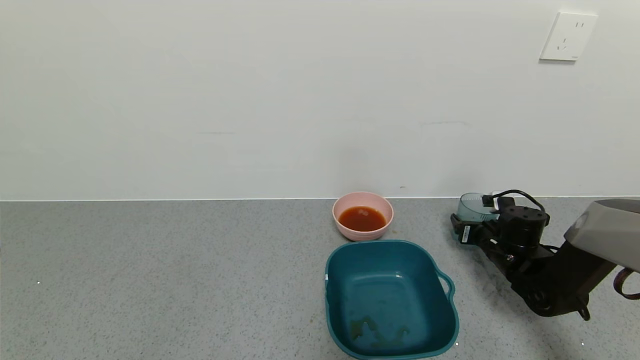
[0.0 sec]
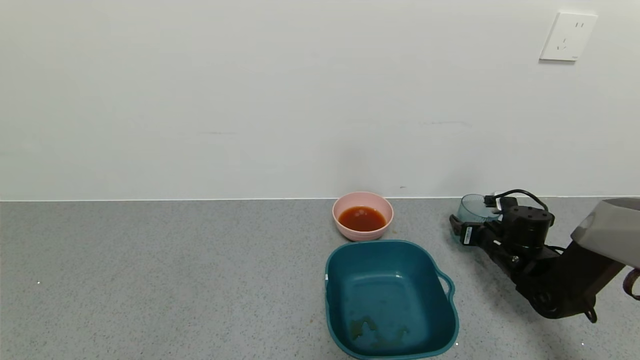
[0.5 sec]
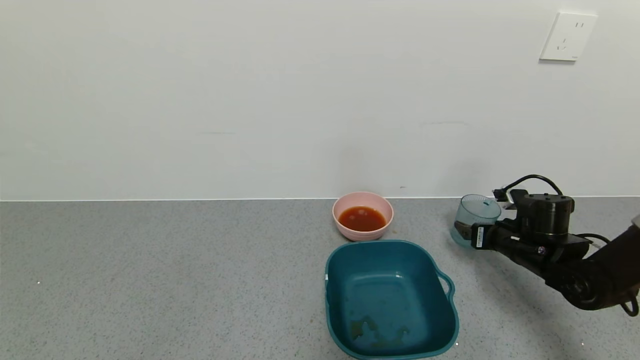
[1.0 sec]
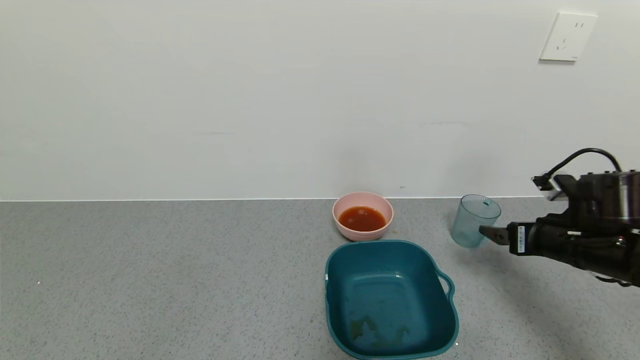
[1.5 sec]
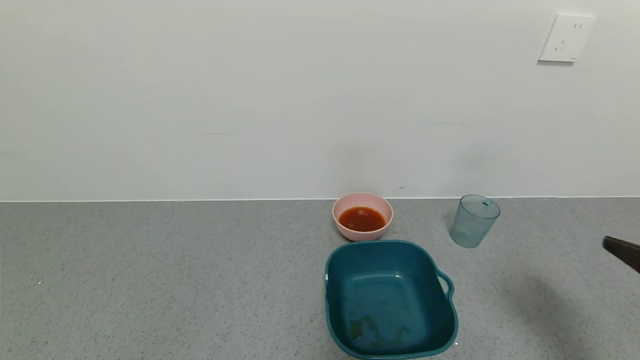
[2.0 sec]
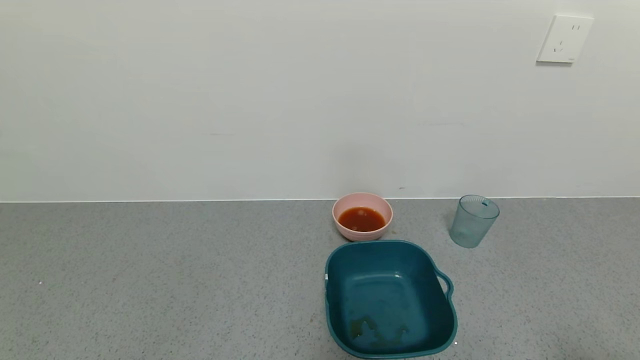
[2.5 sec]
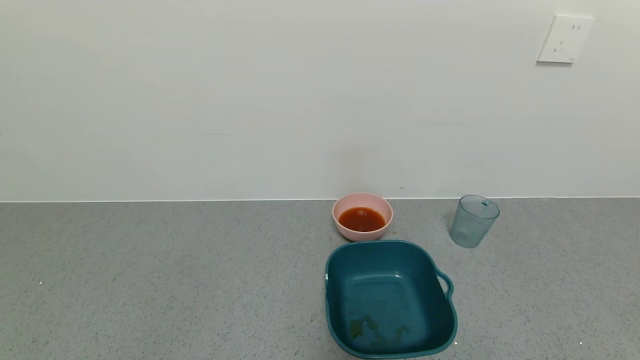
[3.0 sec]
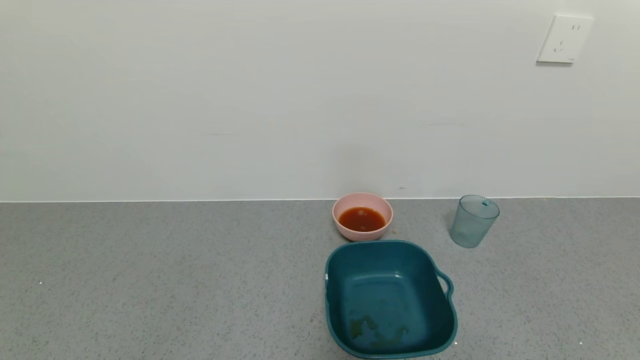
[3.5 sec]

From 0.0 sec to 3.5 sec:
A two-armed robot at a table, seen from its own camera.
Task of the whole recording: use a gripper to pick up the cup and pour the liquid into a bowl or tray.
From 0.0 sec to 2.0 sec: The right gripper is displaced backward and upward by some 35 cm, and opens up.
From 2.0 sec to 3.5 sec: The right gripper shifts roughly 20 cm backward and downward.

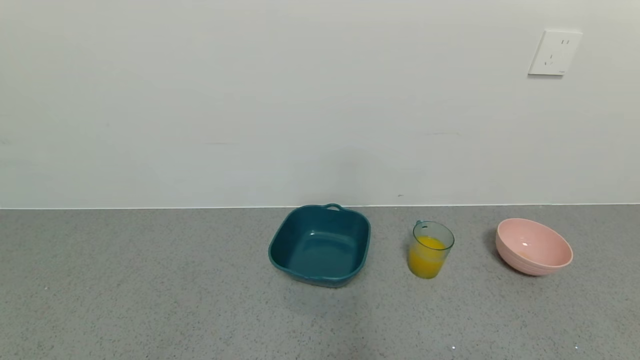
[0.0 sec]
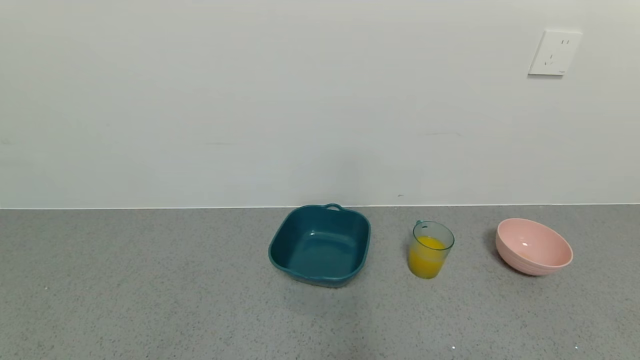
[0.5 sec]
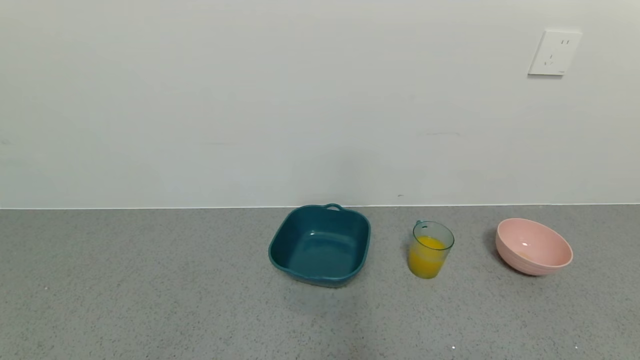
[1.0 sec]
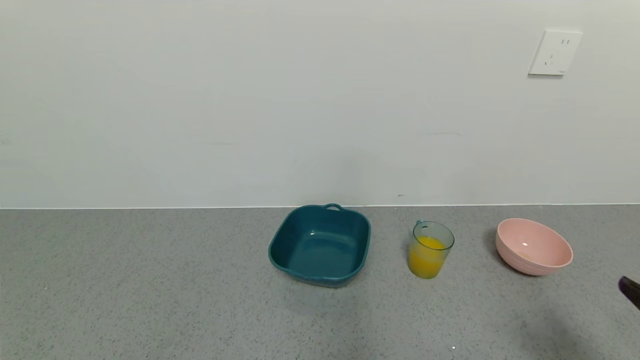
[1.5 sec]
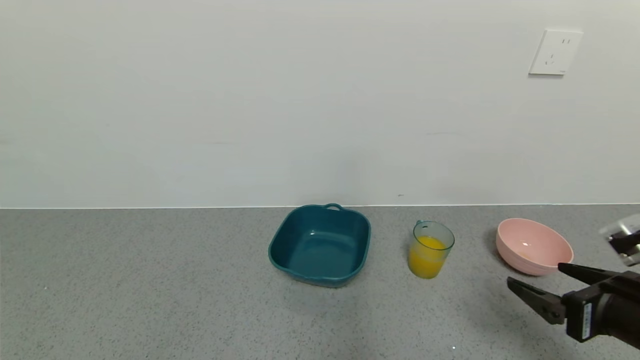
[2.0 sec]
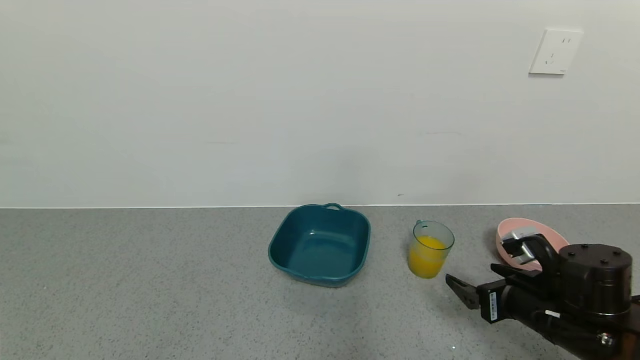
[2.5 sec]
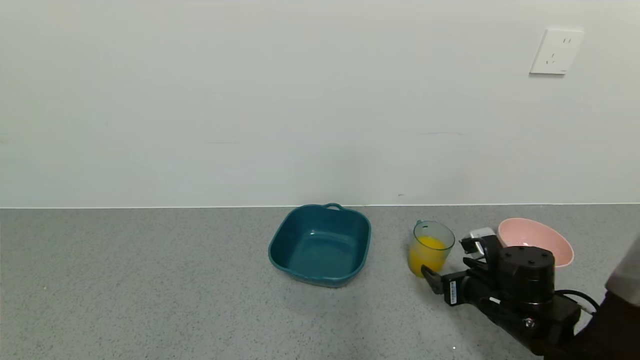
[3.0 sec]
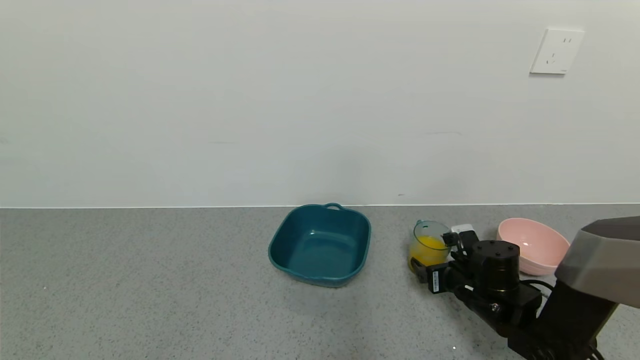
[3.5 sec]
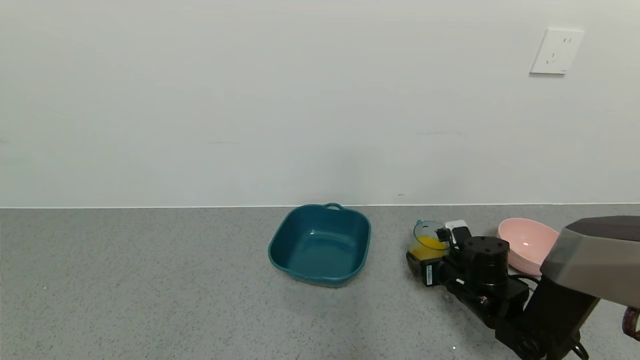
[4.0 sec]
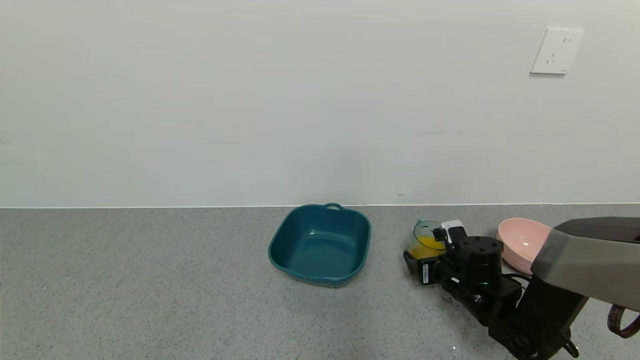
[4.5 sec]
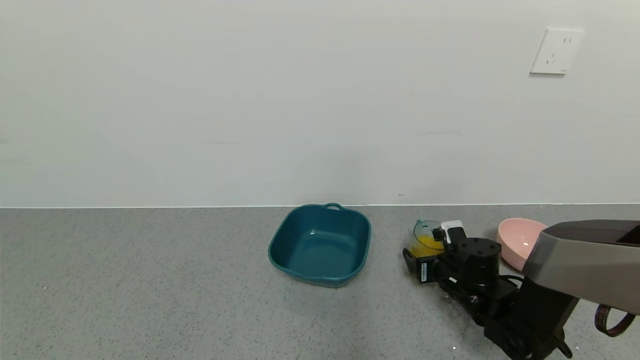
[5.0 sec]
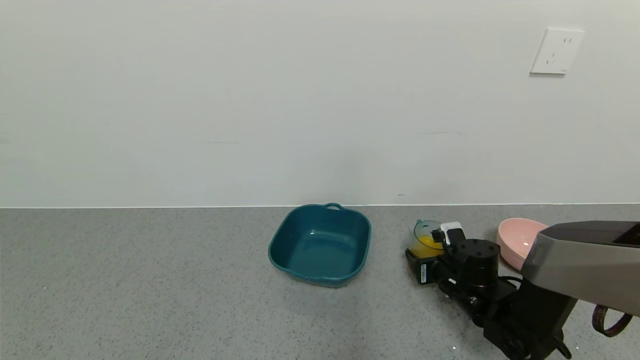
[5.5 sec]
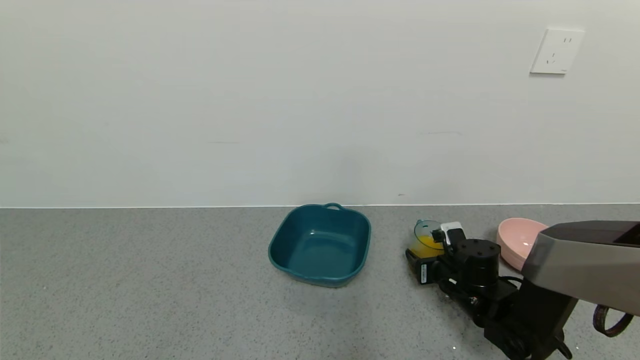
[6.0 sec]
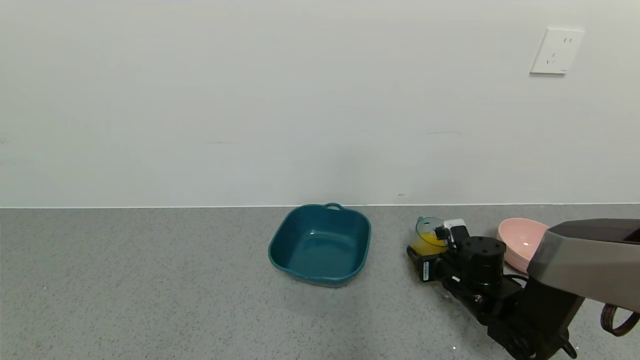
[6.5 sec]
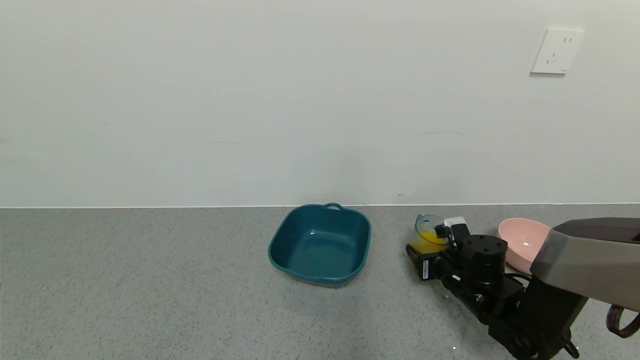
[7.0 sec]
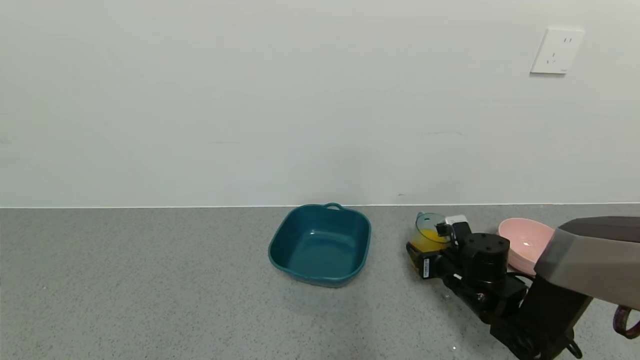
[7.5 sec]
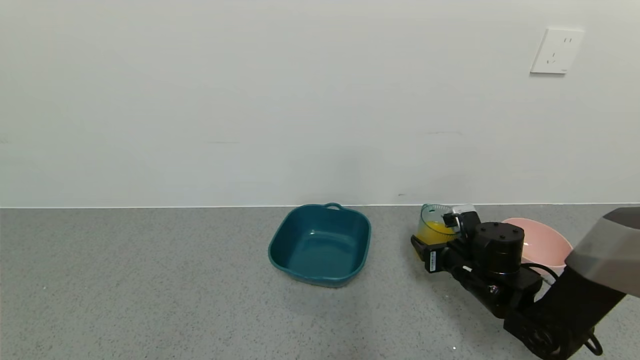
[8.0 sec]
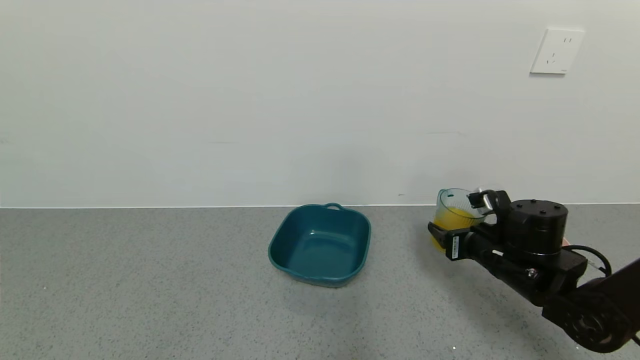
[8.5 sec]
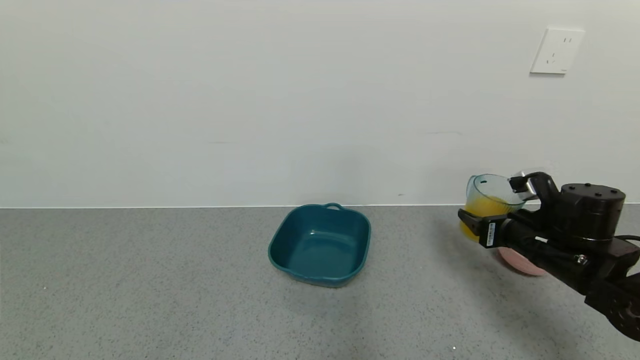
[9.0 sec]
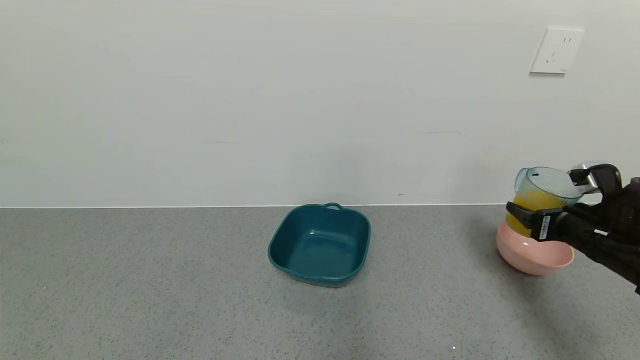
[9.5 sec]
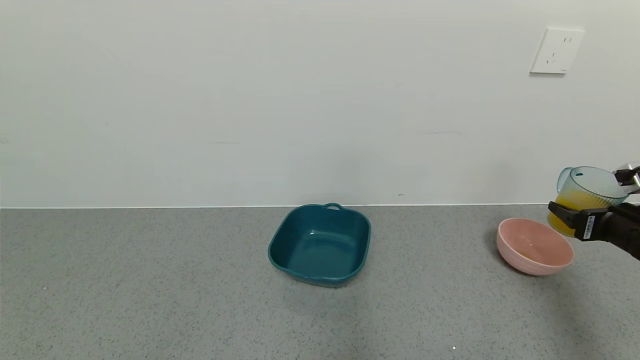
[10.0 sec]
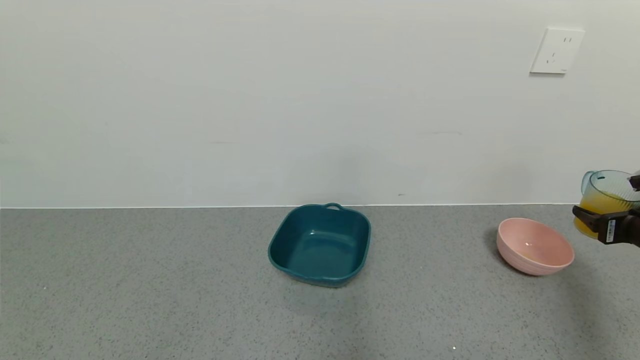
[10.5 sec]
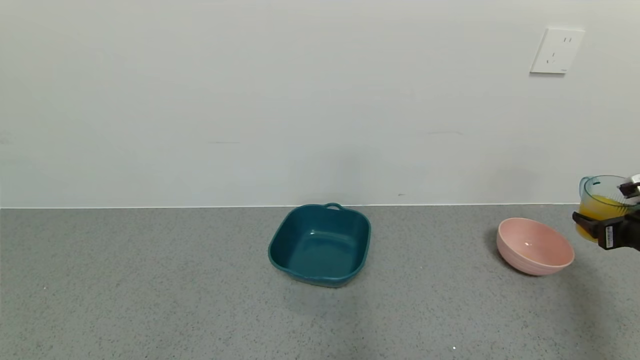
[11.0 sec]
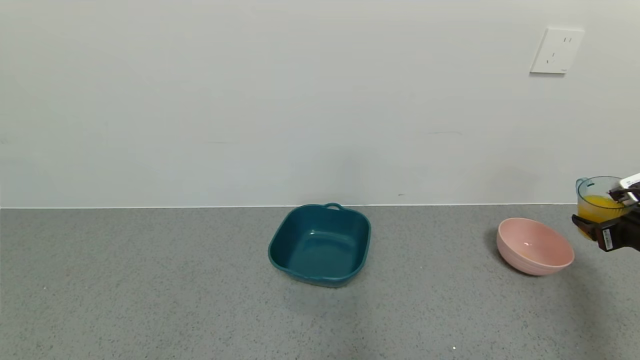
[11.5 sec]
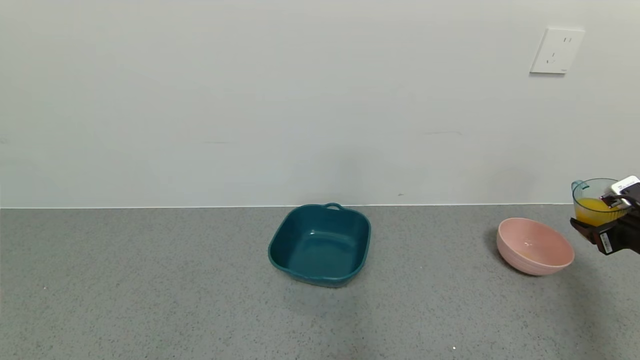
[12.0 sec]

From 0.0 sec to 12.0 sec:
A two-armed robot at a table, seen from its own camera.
Task of the whole recording: use a gripper to pick up the cup and pour the liquid into a bowl or tray.
From 0.0 sec to 2.0 sec: The right gripper moves forward, approximately 20 cm.
From 2.0 sec to 4.0 sec: The right gripper goes approximately 25 cm forward, downward and to the left.
From 4.0 sec to 6.0 sec: The right gripper closes its fingers.
From 6.0 sec to 8.0 sec: There are only small adjustments of the grippers.
From 8.0 sec to 10.0 sec: The right gripper shifts some 25 cm to the right and upward.
From 10.0 sec to 12.0 sec: The right gripper shifts approximately 5 cm to the right.

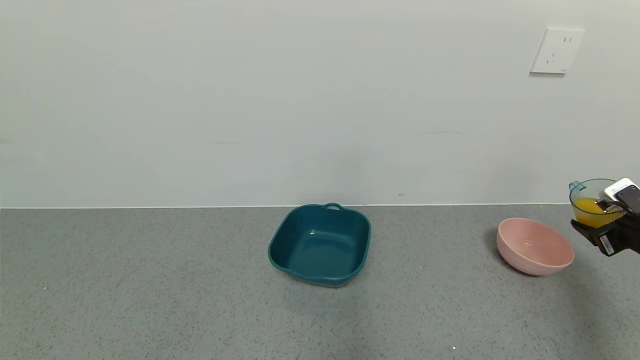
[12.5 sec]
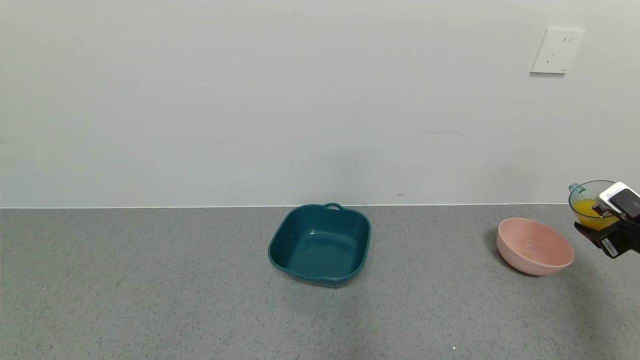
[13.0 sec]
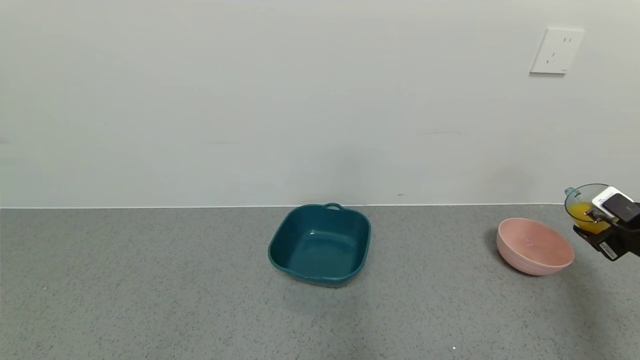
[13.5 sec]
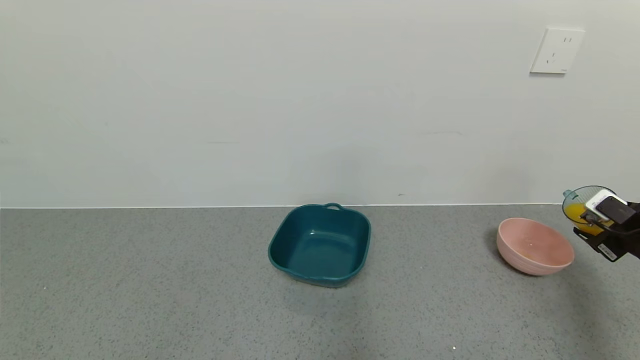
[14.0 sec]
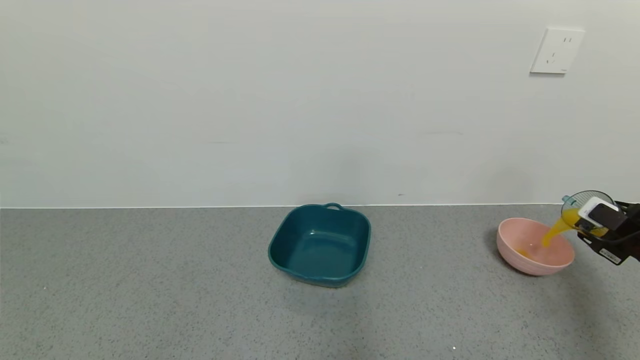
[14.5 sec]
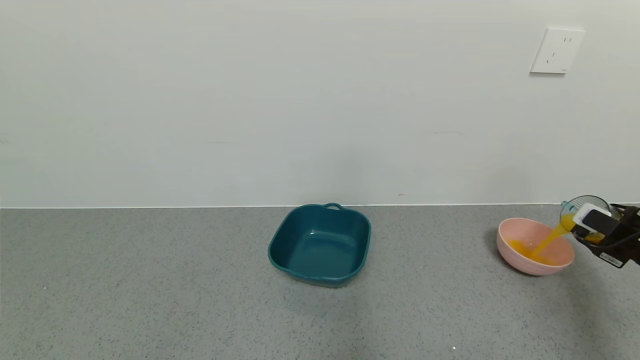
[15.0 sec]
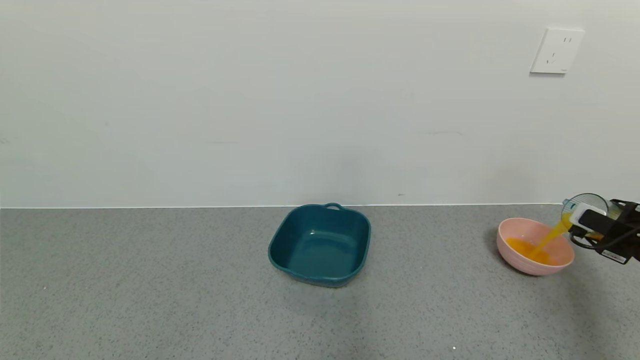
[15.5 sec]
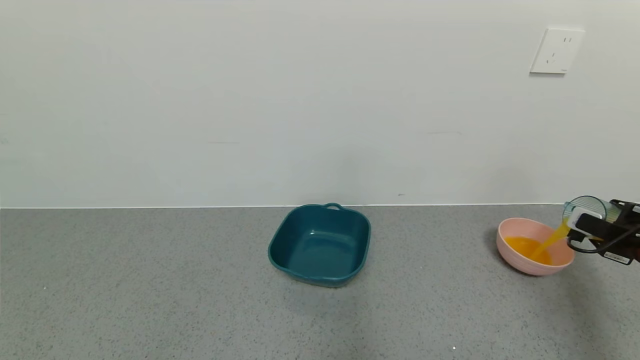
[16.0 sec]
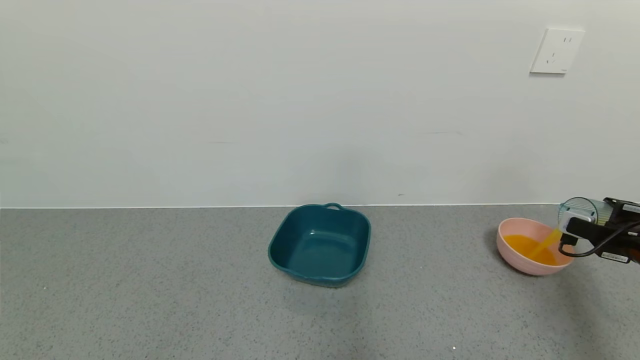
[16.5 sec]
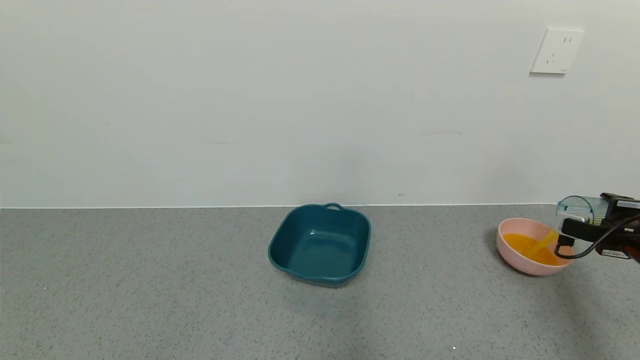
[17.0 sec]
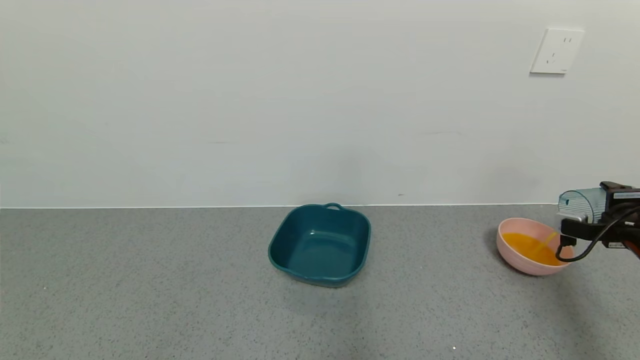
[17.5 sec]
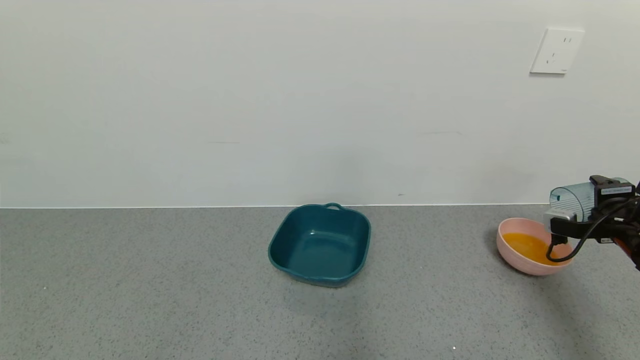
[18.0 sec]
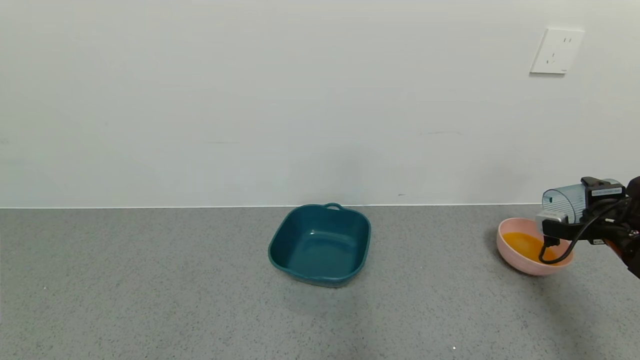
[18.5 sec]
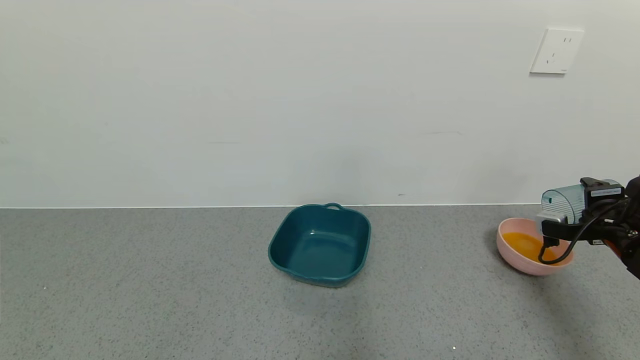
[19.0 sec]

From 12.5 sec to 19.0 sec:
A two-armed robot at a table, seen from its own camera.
Task of the whole recording: use a gripper to pick up the cup and pour the liquid into a bowl or tray.
From 17.0 sec to 19.0 sec: The grippers stay close to where they were, moving slightly.
